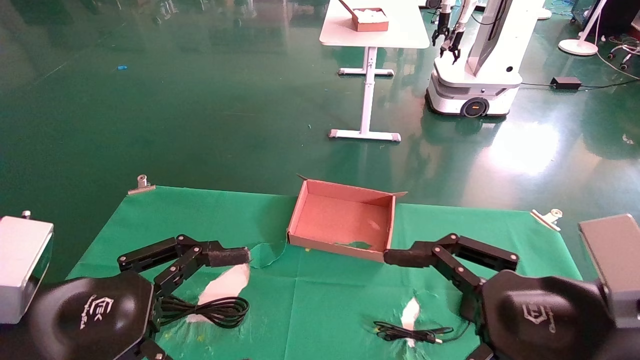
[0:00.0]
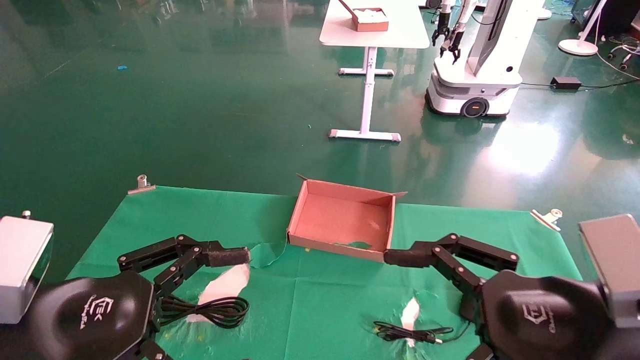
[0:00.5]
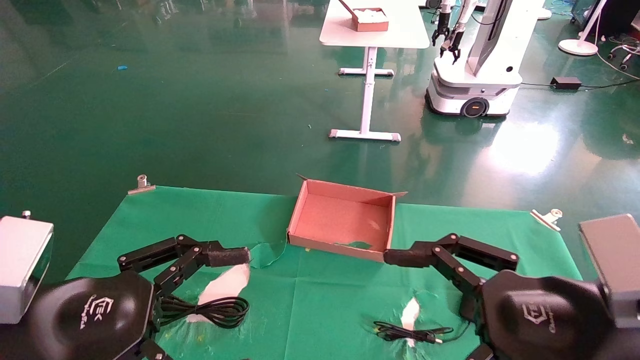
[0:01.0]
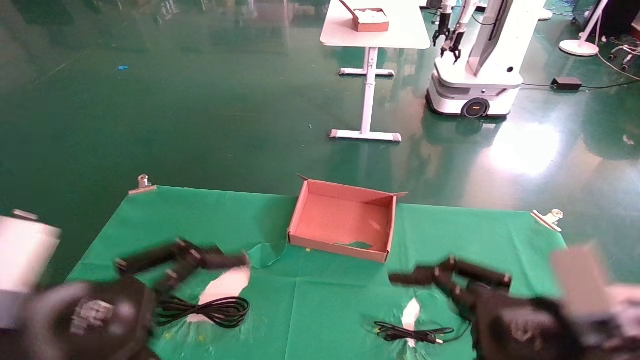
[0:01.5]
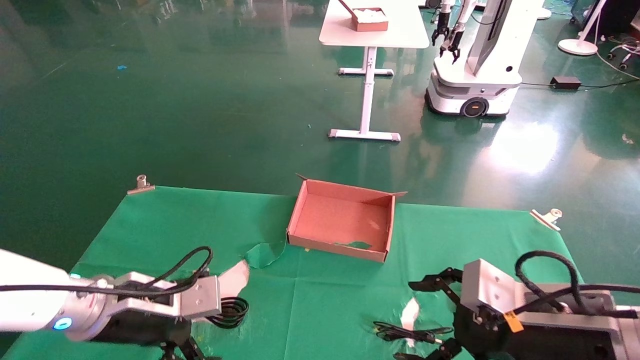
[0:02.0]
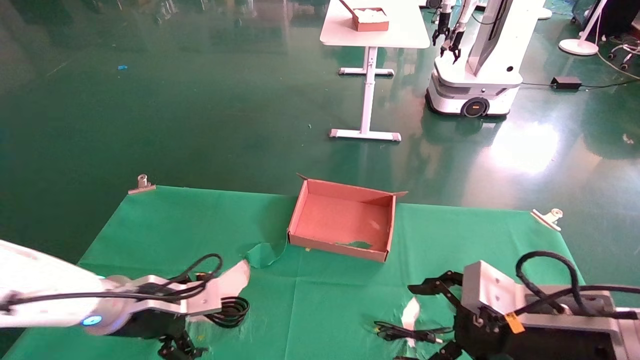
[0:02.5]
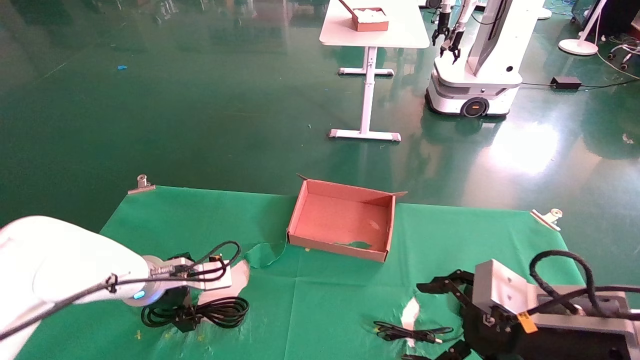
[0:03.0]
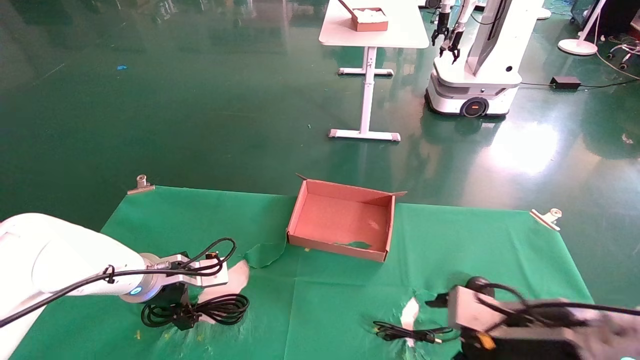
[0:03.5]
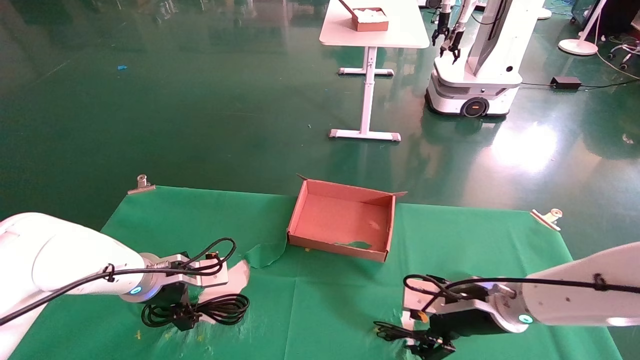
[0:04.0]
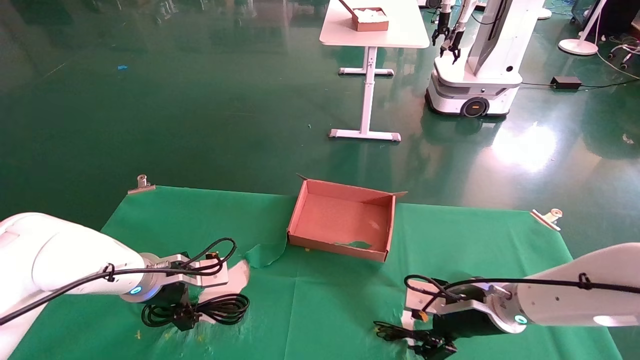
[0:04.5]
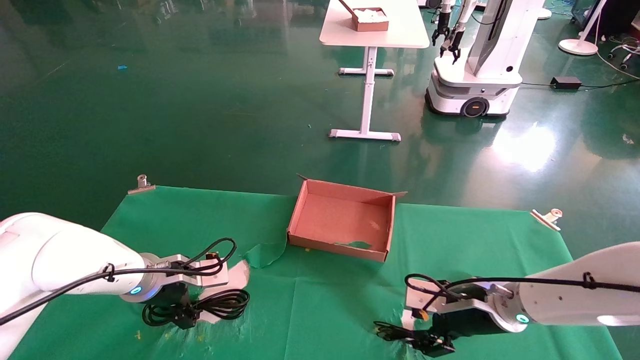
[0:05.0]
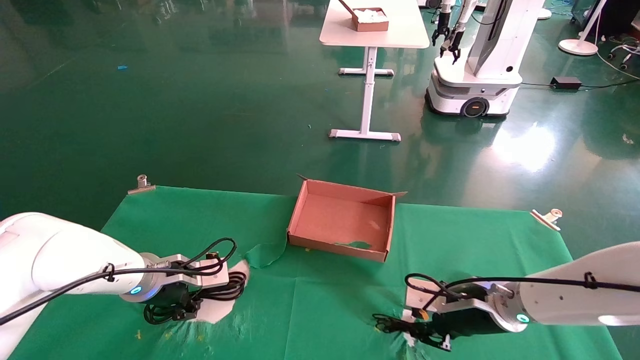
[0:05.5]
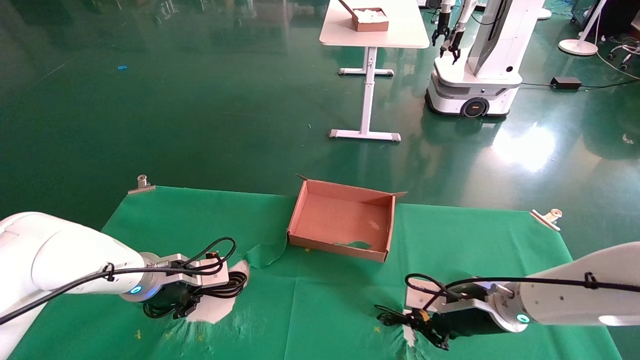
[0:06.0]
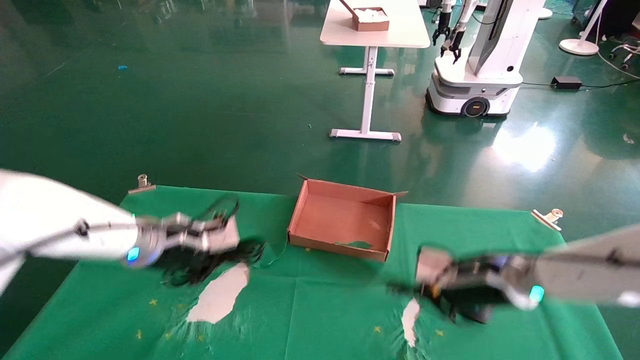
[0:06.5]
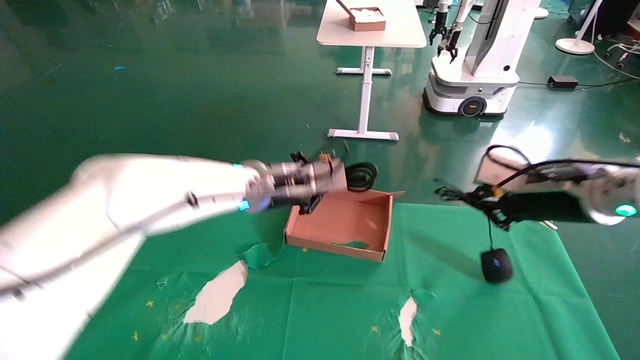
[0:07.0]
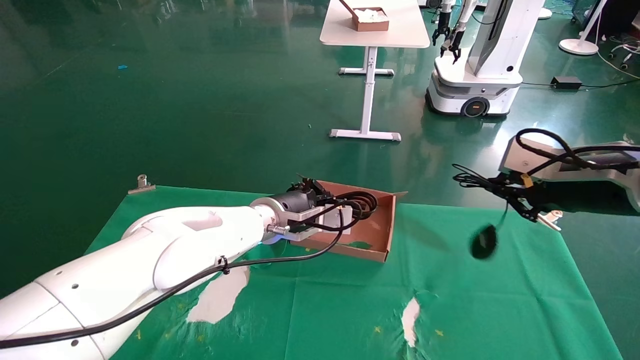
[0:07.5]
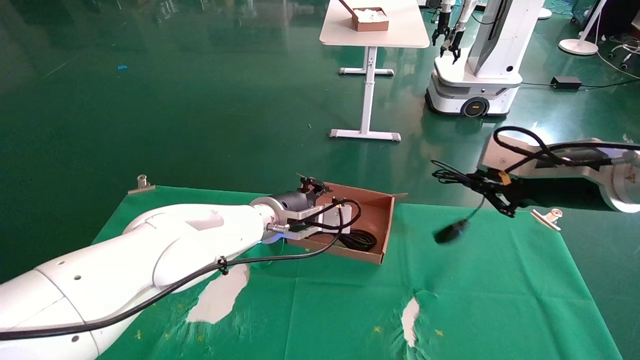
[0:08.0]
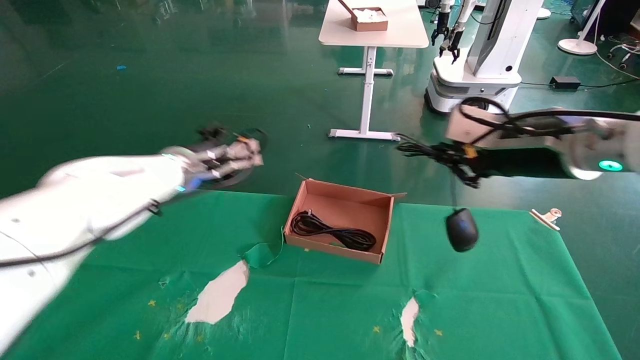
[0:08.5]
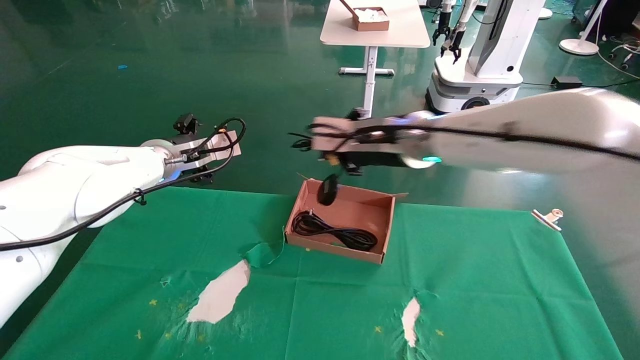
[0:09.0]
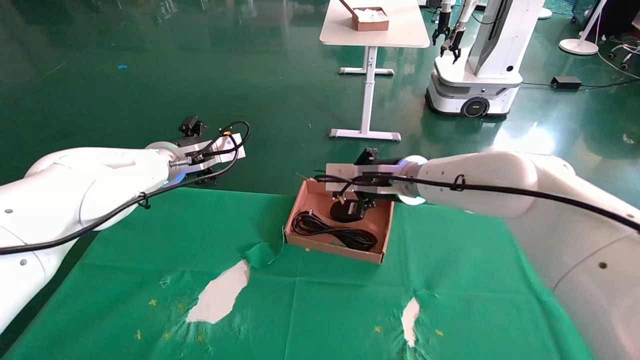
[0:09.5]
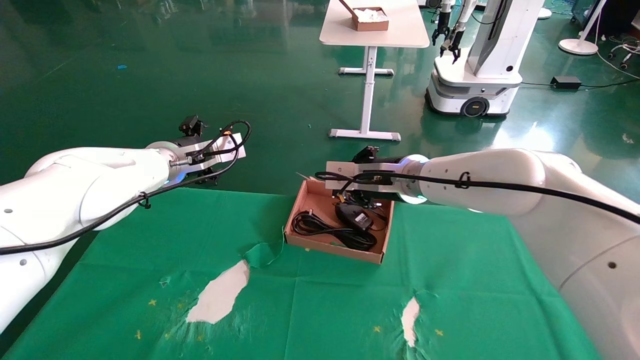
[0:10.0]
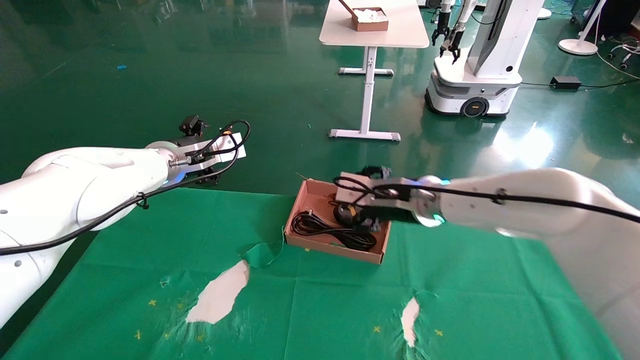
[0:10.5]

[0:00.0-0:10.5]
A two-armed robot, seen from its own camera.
Step, 0:02.0 to 0:06.5: Grab and lift both the mouse and power cord from the accessory packaging area at the same time.
0:00.0 to 0:02.0: The right gripper goes some 10 cm forward and downward. The left gripper travels forward and downward by about 15 cm.
0:02.0 to 0:04.0: The left gripper heads forward, covering about 10 cm. Meanwhile the right gripper shifts about 15 cm forward and downward.
0:04.0 to 0:06.5: The right gripper moves upward, some 5 cm, and closes up; the left gripper heads upward, covering approximately 10 cm, and closes.
0:06.5 to 0:08.5: The right gripper moves upward, about 15 cm, while the left gripper travels forward and upward by some 10 cm, reaches some 15 cm to the right, then returns, and opens up.
0:08.5 to 0:10.5: The right gripper shifts approximately 20 cm to the left, downward and forward, and opens up; the left gripper opens.

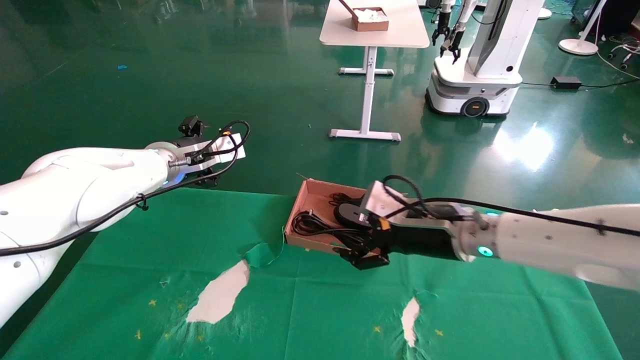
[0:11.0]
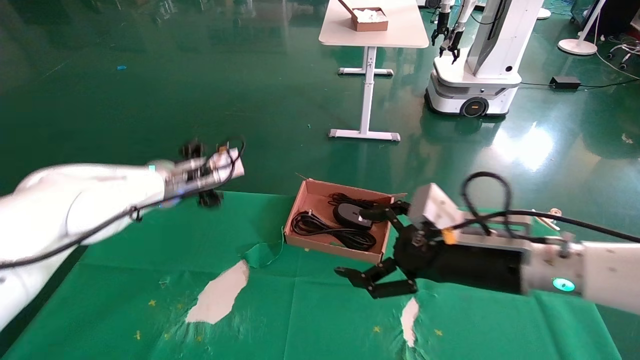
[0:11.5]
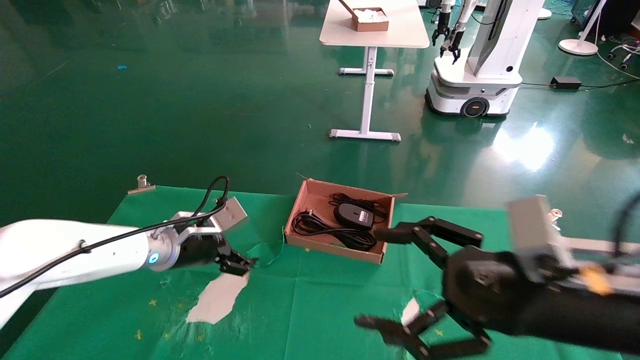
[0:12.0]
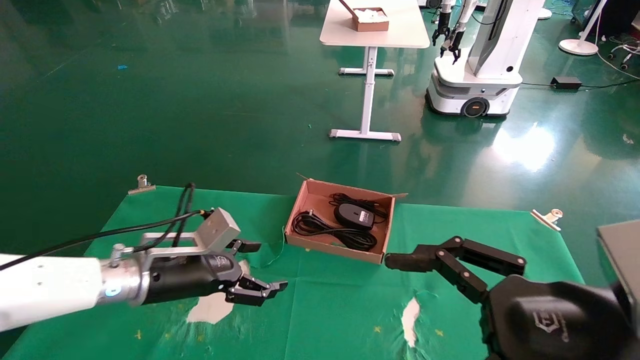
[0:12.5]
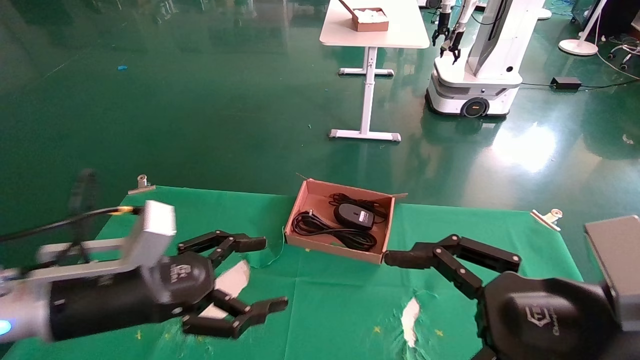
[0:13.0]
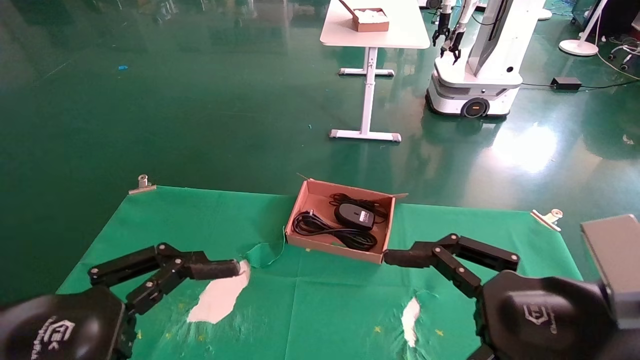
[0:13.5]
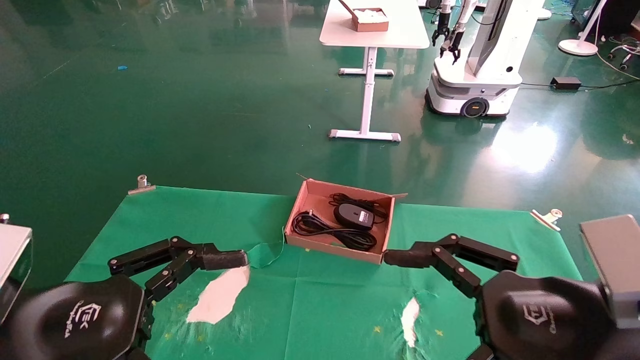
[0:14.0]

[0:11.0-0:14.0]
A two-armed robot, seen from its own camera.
0:11.0 to 0:12.5: The right gripper heads backward, covering some 20 cm. The left gripper goes approximately 20 cm downward and backward.
0:12.5 to 0:14.0: The left gripper travels backward by about 20 cm.

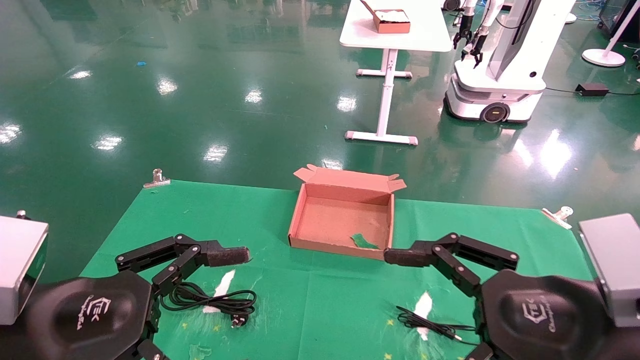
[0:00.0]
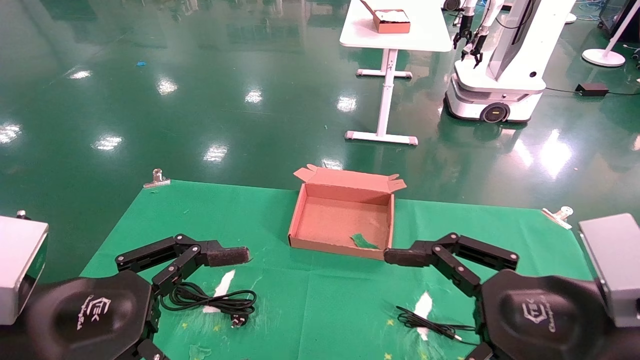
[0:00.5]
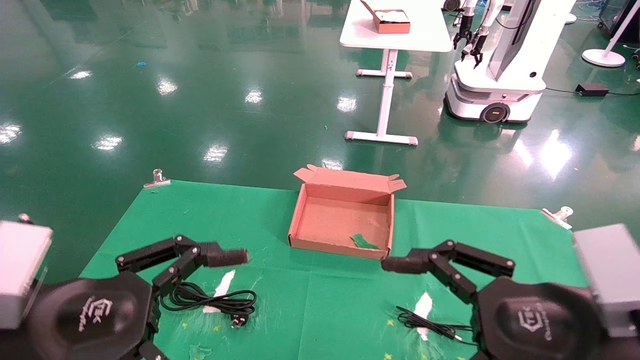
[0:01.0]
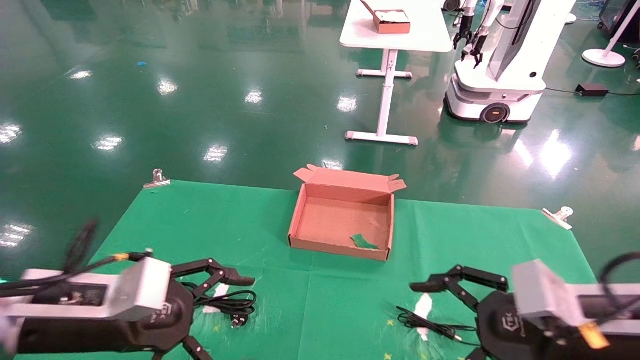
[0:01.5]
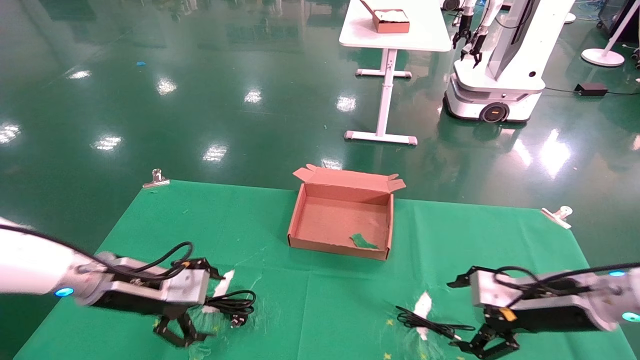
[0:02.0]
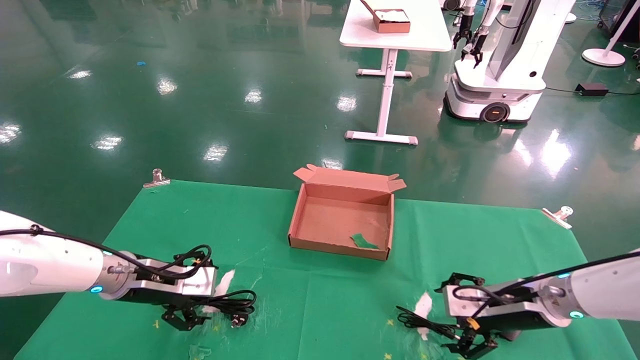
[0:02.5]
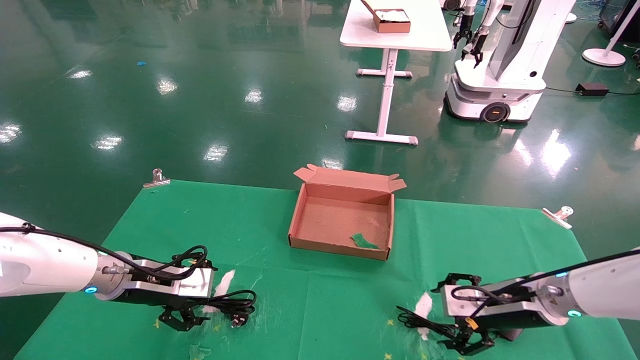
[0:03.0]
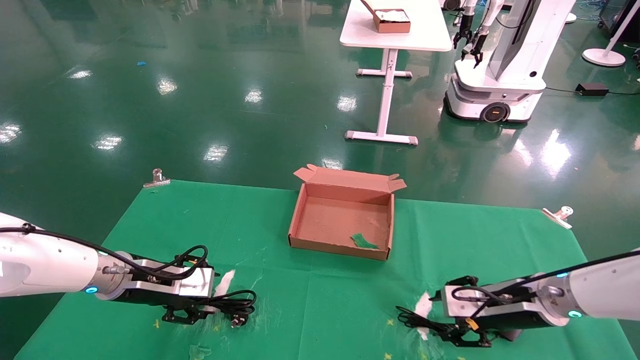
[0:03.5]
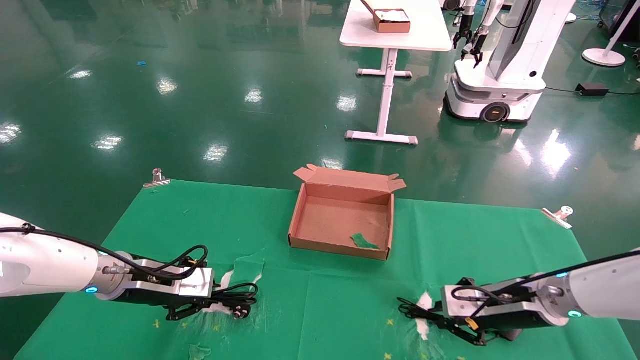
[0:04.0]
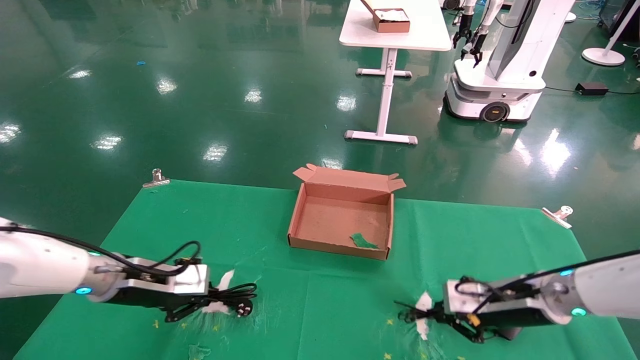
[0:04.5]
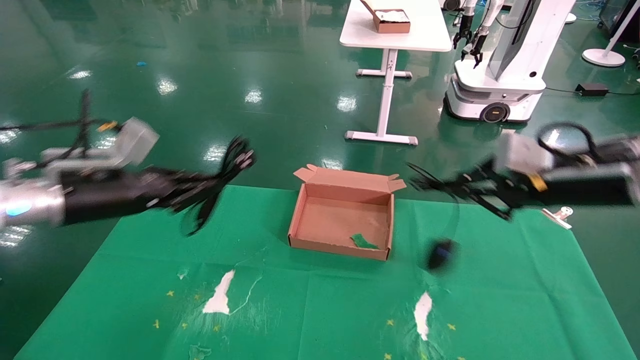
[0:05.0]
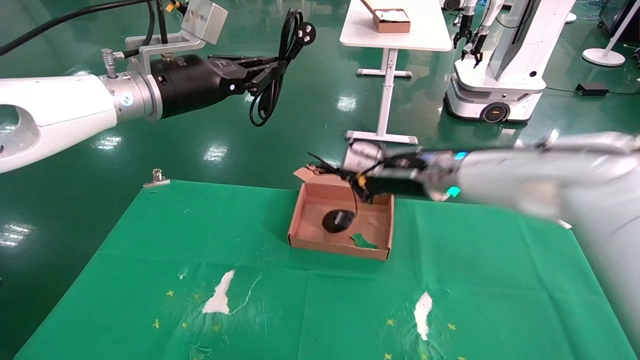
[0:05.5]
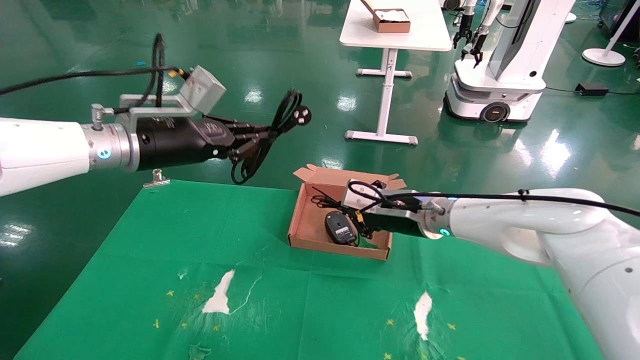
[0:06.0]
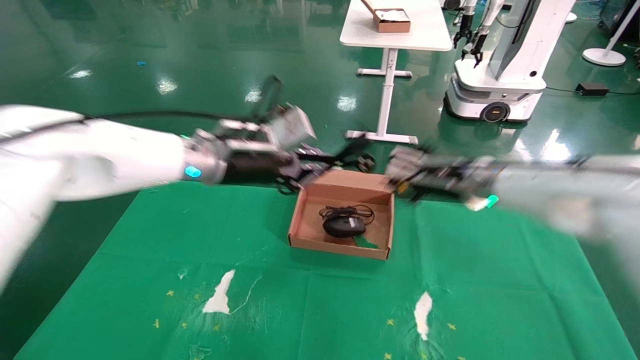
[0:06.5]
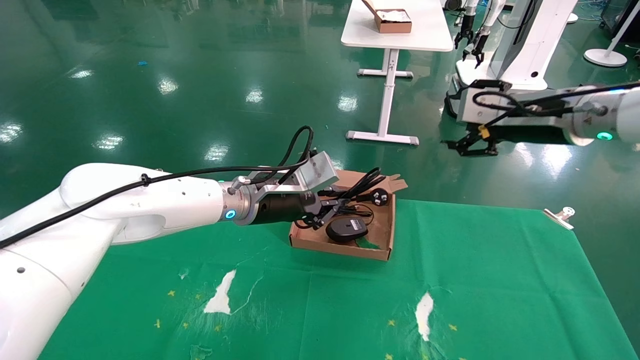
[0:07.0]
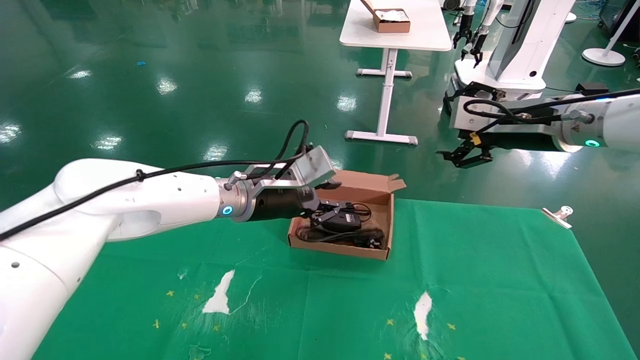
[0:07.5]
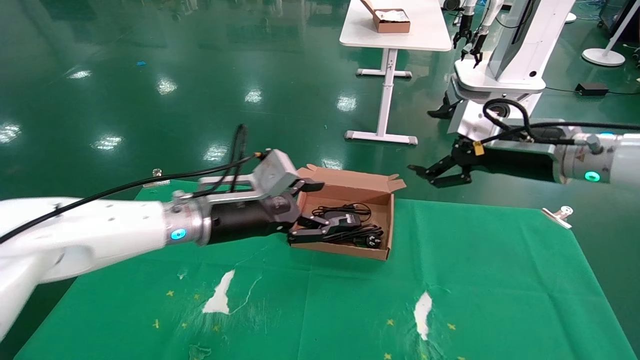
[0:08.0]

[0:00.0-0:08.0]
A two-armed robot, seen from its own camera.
Step, 0:02.0 to 0:04.5: Grab and lift both the mouse and power cord from the accessory packaging area at the same time.
0:00.0 to 0:02.0: The left gripper heads forward, covering approximately 20 cm. Meanwhile the right gripper travels forward and downward by roughly 20 cm.
0:02.0 to 0:04.0: The left gripper closes its fingers. Meanwhile the right gripper changes place by some 5 cm, and closes up.
0:04.0 to 0:06.0: The left gripper heads upward, covering approximately 20 cm; the right gripper shifts approximately 20 cm to the left, upward and forward.
0:06.0 to 0:08.0: The left gripper heads downward and to the right, covering roughly 15 cm, and opens up. Meanwhile the right gripper moves to the right, upward and backward, roughly 20 cm, and opens up.
